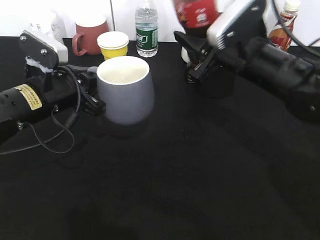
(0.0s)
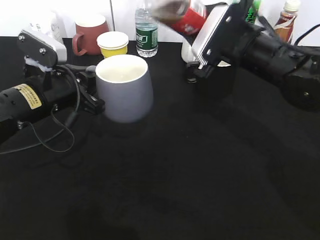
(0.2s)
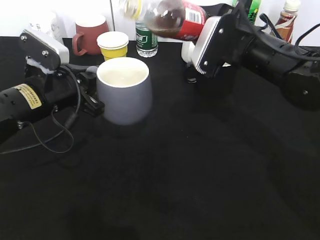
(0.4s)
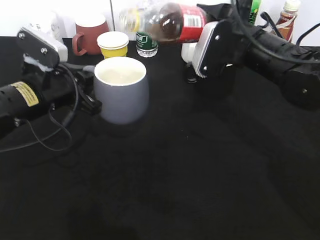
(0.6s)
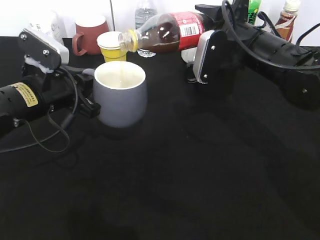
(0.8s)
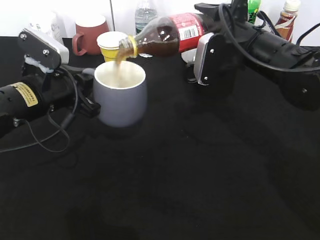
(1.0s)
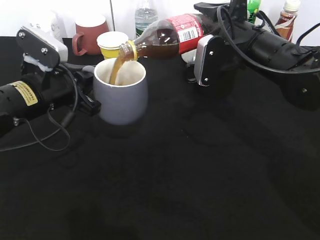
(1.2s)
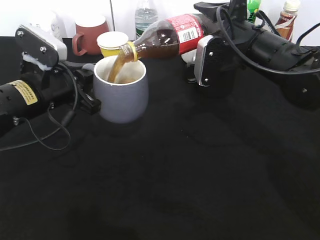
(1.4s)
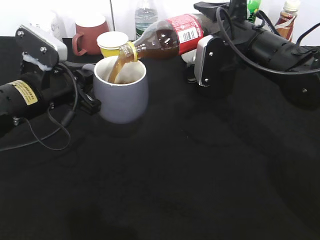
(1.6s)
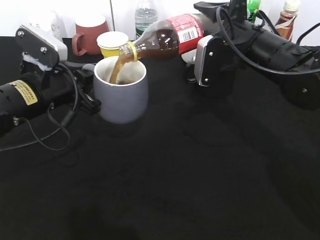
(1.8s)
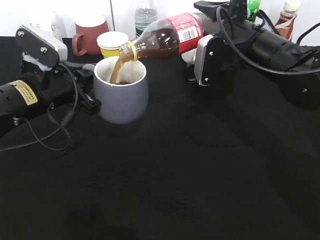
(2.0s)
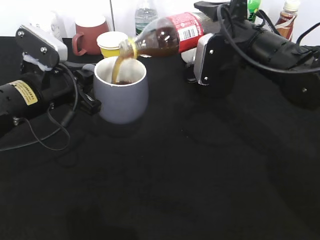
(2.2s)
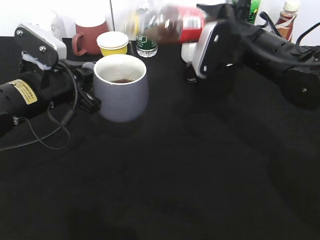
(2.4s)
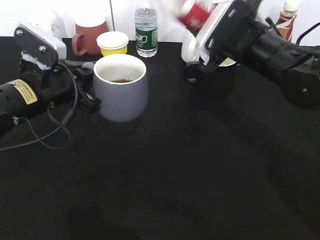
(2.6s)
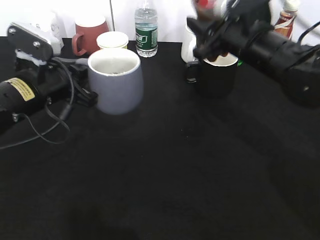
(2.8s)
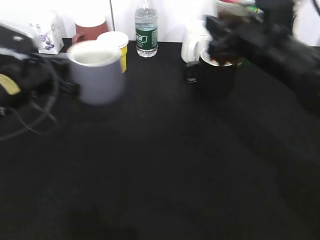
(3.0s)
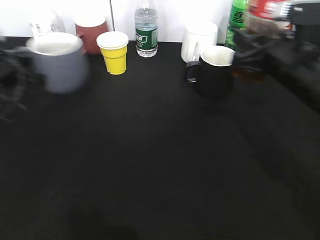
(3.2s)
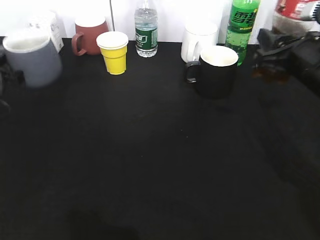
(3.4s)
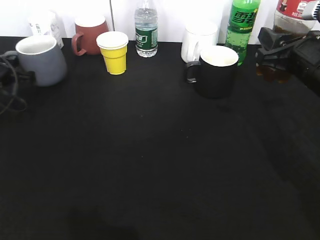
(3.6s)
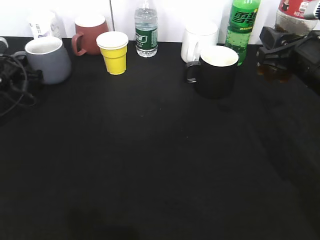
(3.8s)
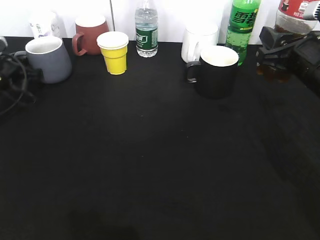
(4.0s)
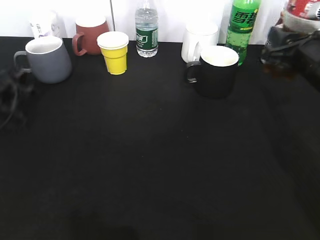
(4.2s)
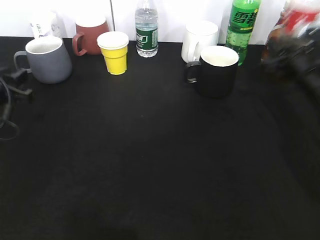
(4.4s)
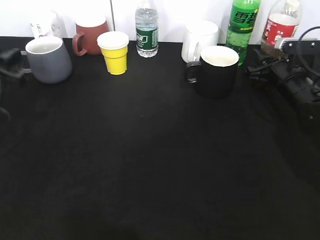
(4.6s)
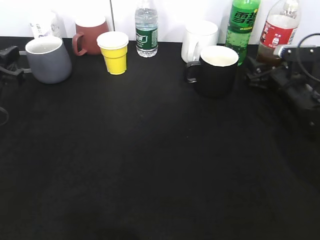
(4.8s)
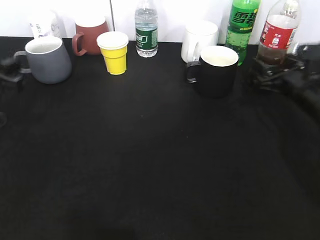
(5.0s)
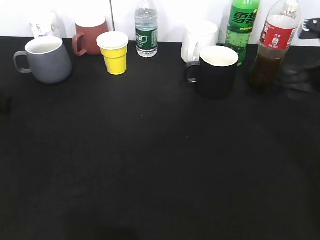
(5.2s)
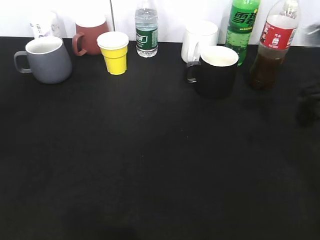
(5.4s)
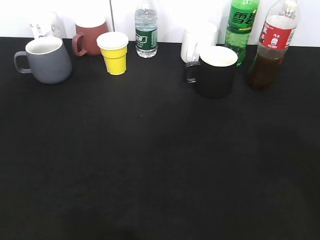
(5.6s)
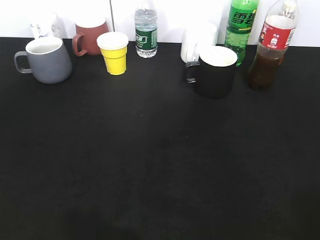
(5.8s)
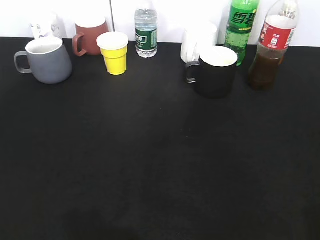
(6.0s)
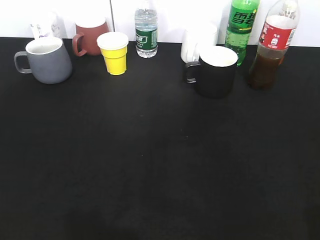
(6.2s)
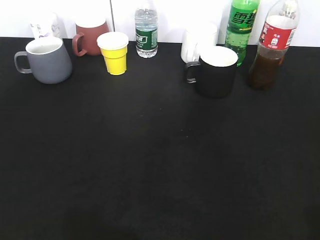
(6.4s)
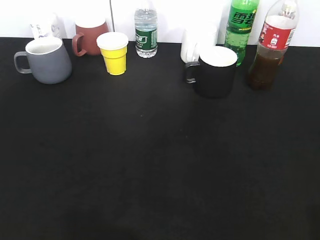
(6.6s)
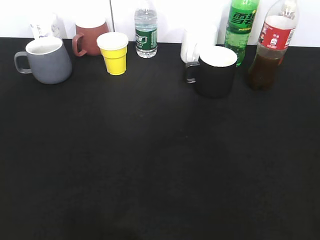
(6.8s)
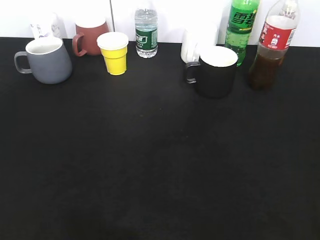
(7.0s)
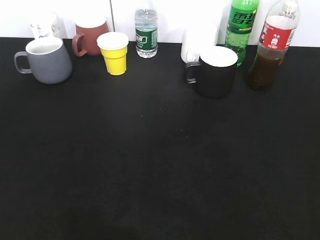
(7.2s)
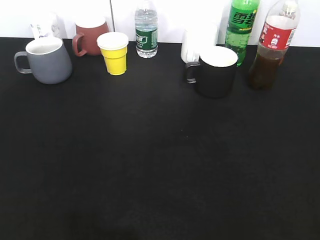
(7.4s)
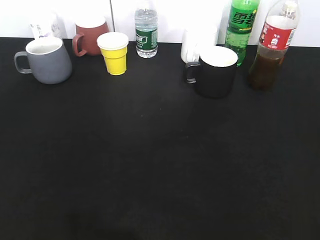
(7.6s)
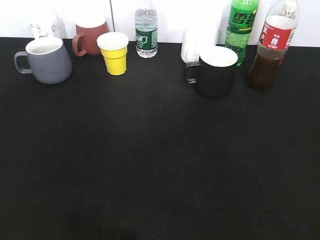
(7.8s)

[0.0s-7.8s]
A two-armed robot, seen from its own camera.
Step, 0.0s to 2.0s: Pour the cola from bottle to cup with right gripper.
Step, 2.4s to 4.2s: Place the grey cup on the table with left gripper.
Step, 4.4s to 5.2s: Place the cola bottle on the table with right gripper.
1.6s to 3.2s: The right gripper shifts roughly 10 cm to the right and backward. The left gripper shifts approximately 10 cm to the left.
3.2s to 4.6s: The right gripper shifts approximately 15 cm forward, downward and to the right. The left gripper goes forward and returns, roughly 10 cm each way, and opens its fingers.
4.6s to 6.2s: The left gripper moves backward, some 25 cm. The right gripper goes some 40 cm backward and upward, and opens up.

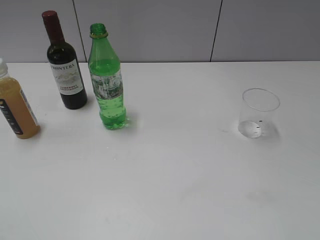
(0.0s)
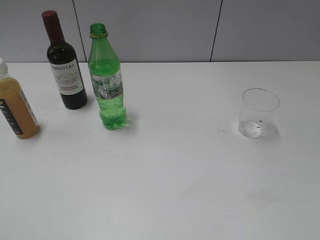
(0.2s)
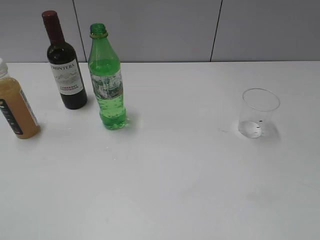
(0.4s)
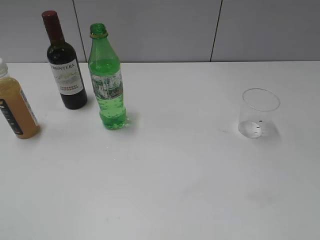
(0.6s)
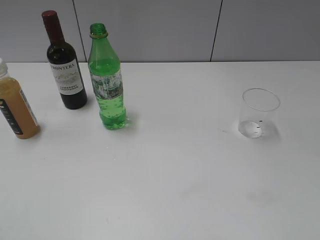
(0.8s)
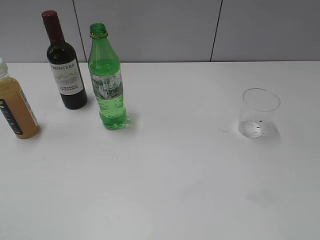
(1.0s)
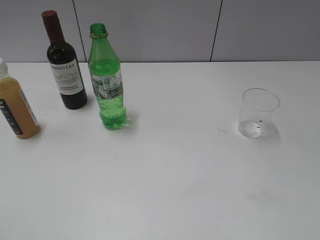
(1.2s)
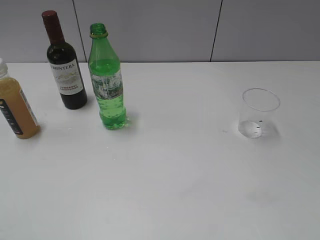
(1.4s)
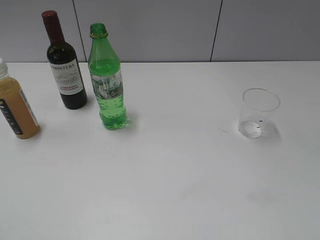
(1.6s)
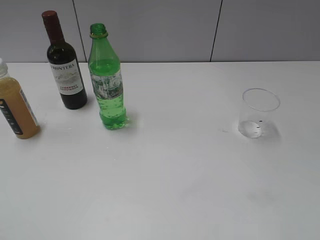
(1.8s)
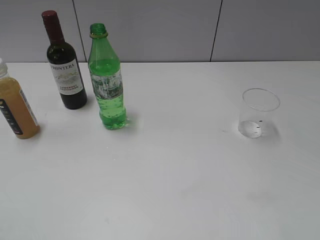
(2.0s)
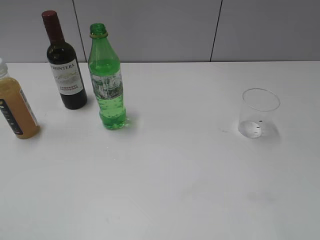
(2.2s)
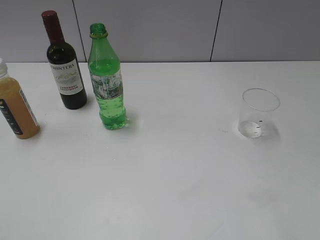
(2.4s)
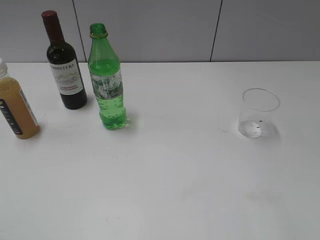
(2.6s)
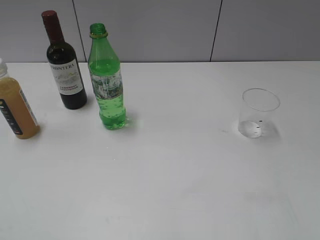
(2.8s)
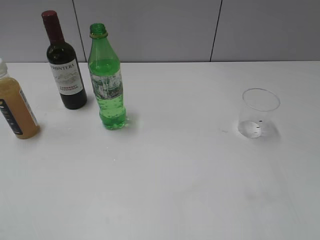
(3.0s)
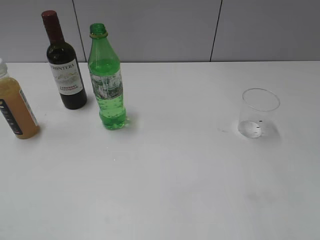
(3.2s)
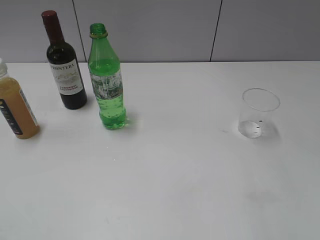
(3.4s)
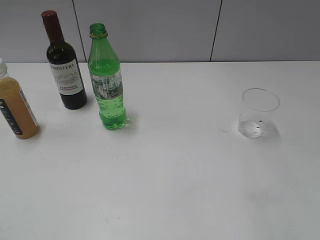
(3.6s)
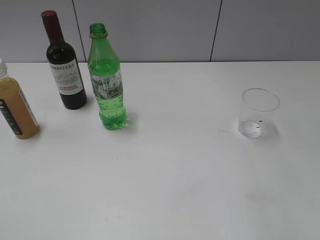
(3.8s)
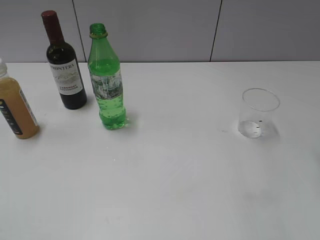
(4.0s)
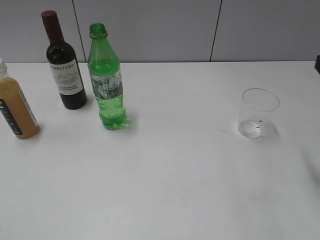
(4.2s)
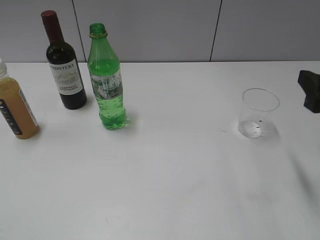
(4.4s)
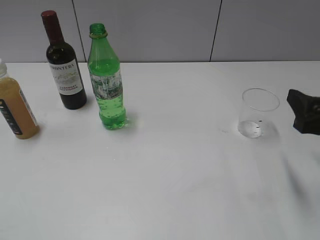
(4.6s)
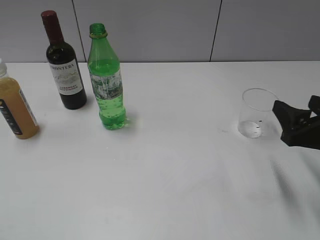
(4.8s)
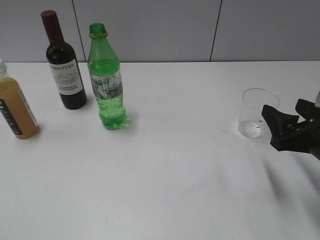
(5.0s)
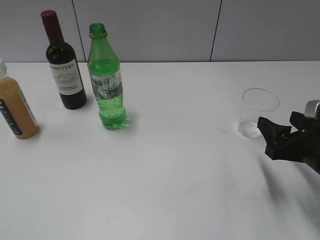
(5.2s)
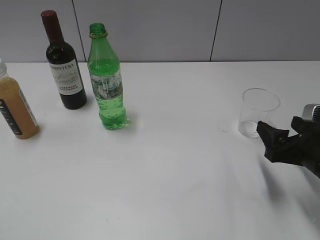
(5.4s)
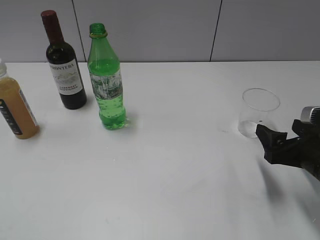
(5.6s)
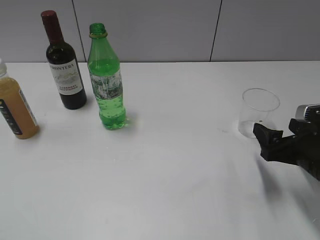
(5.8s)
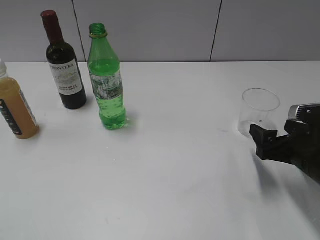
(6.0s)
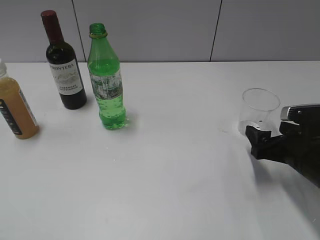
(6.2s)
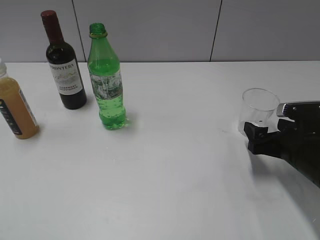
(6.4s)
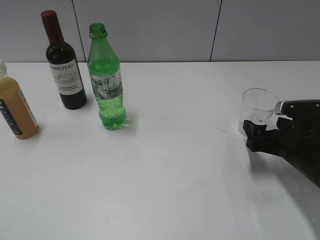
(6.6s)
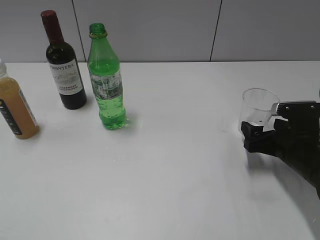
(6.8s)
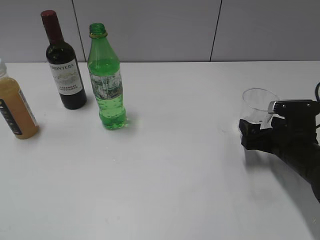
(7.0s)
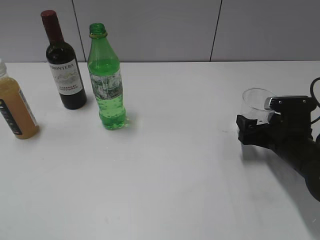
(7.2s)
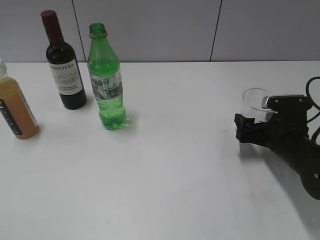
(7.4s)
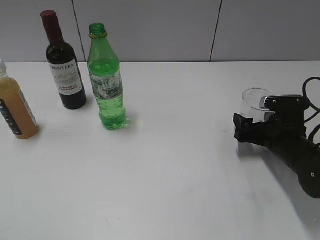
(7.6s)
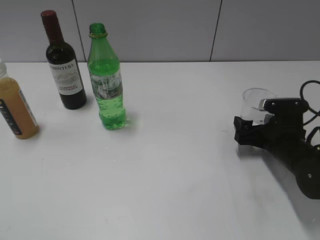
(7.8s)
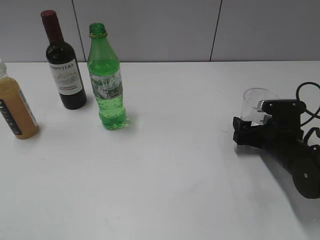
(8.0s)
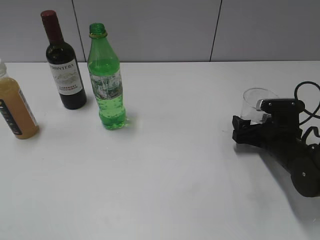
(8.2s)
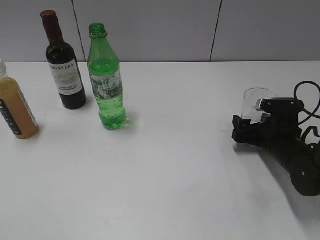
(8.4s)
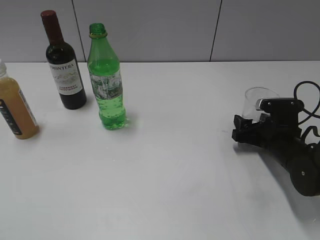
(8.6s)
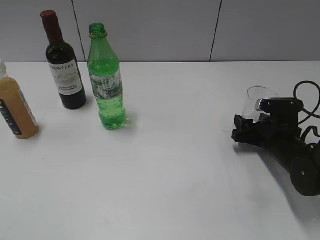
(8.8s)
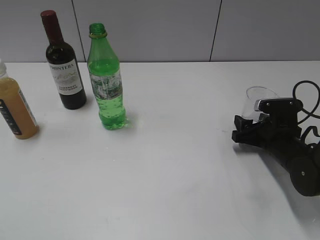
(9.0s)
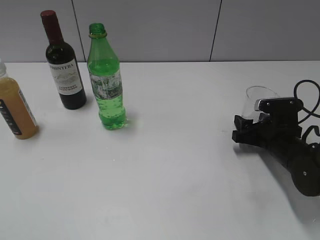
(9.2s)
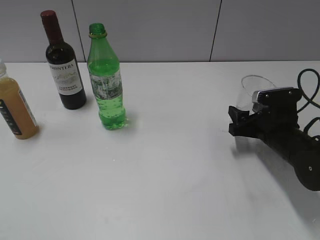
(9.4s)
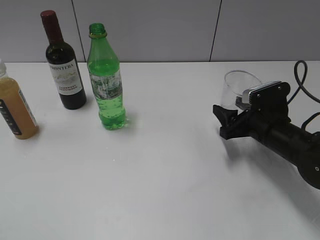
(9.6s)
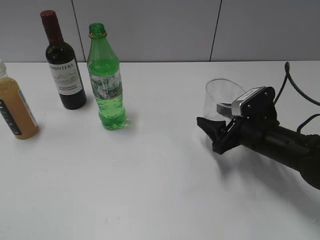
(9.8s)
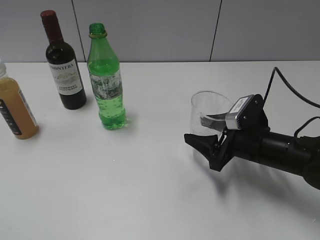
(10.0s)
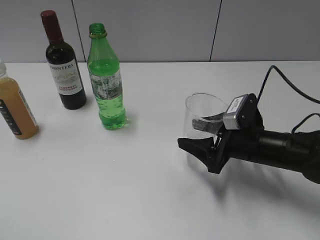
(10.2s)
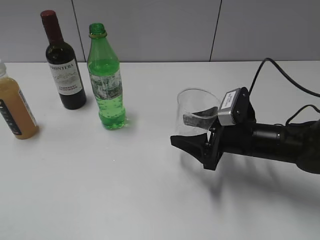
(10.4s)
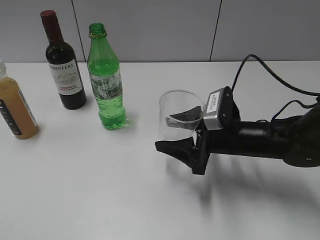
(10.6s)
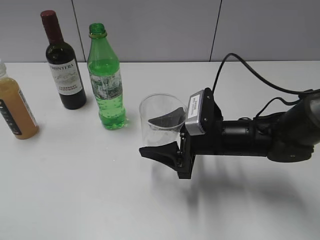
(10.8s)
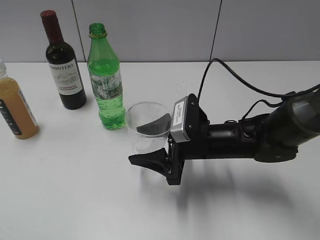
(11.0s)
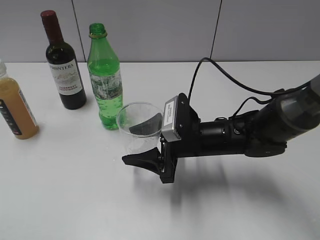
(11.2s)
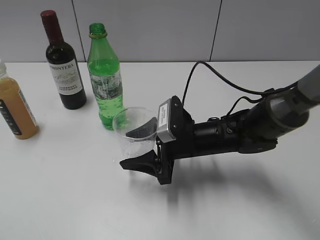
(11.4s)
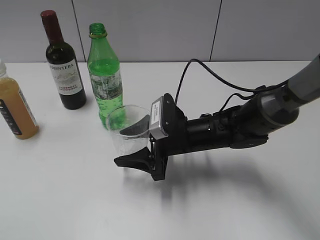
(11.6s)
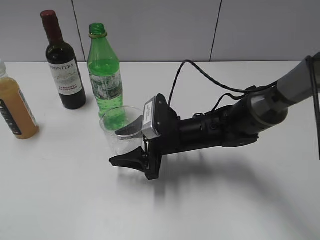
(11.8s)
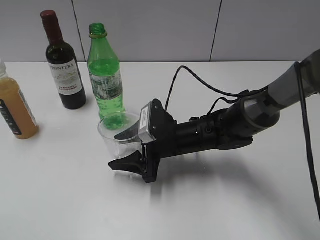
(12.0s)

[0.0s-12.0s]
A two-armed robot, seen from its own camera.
Step, 1.0s to 8.8s: Grasp the transparent cup with right gripper.
3.0s to 4.4s: The right gripper is displaced forward and downward by some 10 cm.
4.4s to 6.0s: The right gripper goes about 10 cm downward, and opens its fingers.
6.0s to 7.6s: The right gripper goes roughly 5 cm forward.
7.6s to 9.0s: The right gripper closes its fingers.
9.0s to 10.4s: The right gripper travels to the left by about 10 cm.
10.4s to 12.0s: The right gripper moves to the left, about 10 cm.

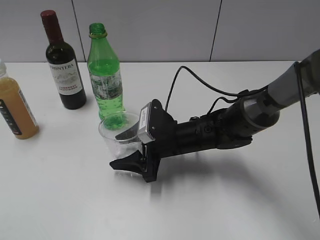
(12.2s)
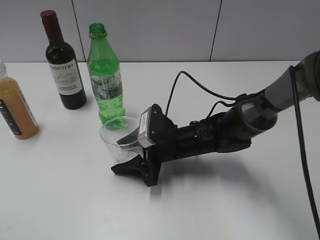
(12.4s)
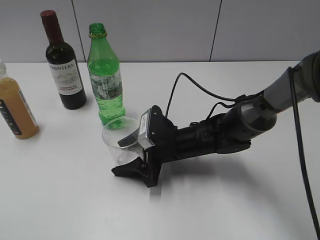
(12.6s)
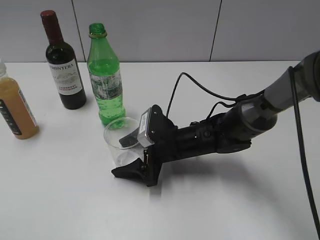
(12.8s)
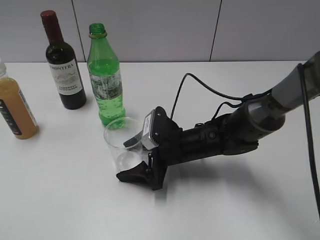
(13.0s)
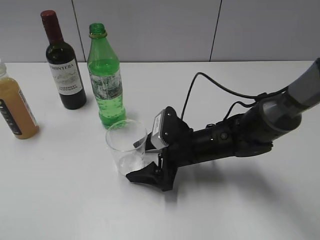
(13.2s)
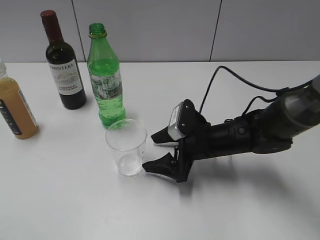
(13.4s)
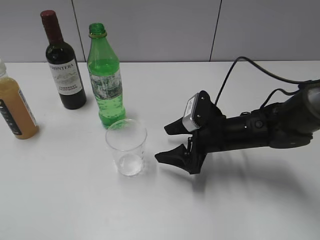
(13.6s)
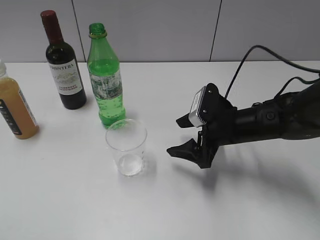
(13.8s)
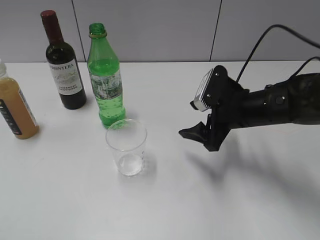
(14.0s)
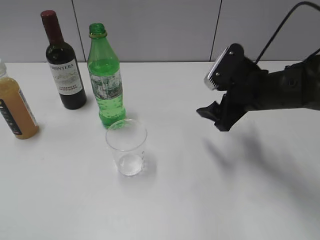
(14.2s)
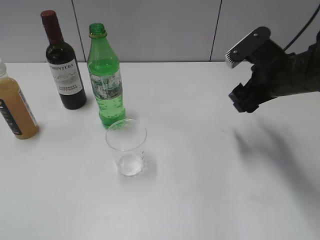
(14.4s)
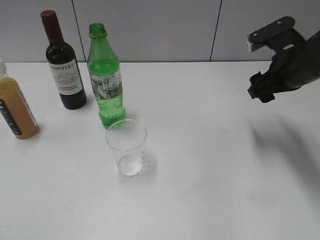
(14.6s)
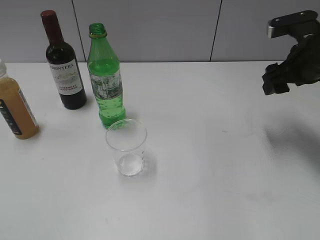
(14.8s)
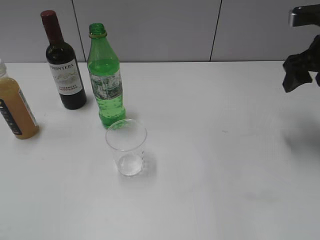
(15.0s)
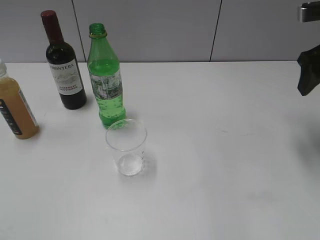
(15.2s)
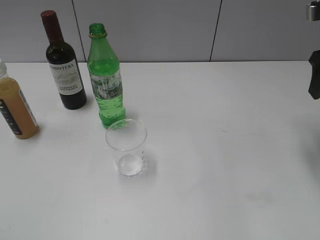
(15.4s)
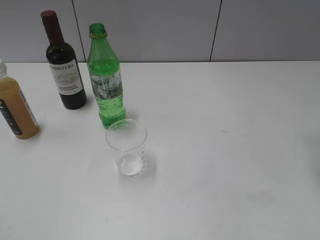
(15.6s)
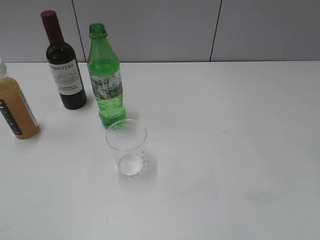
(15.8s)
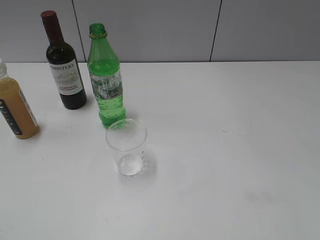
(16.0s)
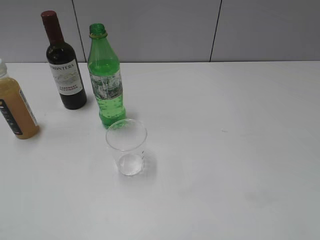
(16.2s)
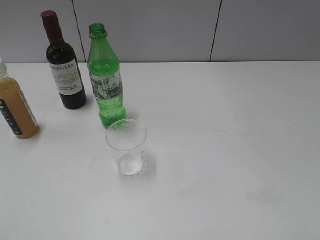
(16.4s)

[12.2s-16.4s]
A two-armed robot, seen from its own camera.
12.2s to 13.6s: The right gripper heads to the right, covering some 10 cm, and opens its fingers.
13.6s to 15.0s: The right gripper travels upward and to the right by approximately 20 cm, and closes up.
15.0s to 16.4s: The right gripper goes some 25 cm backward.
